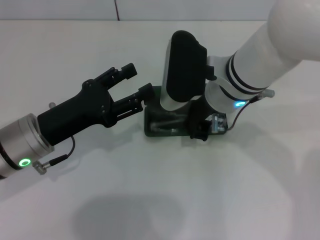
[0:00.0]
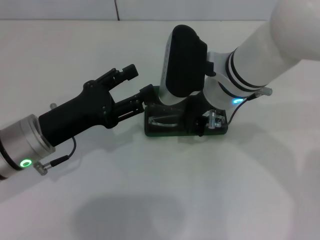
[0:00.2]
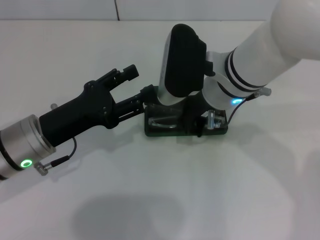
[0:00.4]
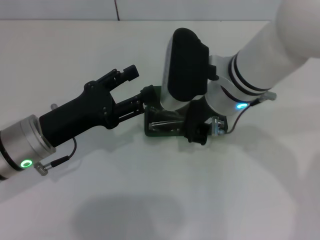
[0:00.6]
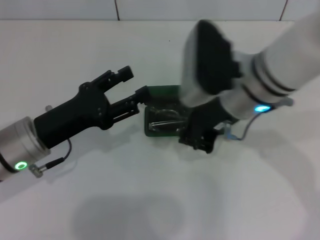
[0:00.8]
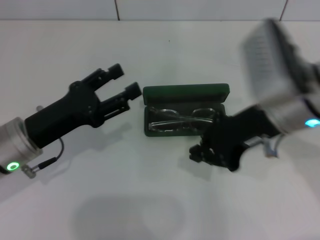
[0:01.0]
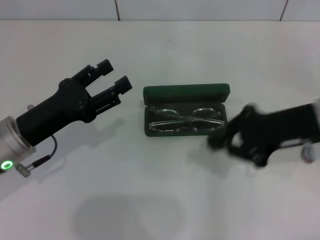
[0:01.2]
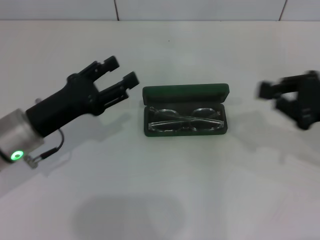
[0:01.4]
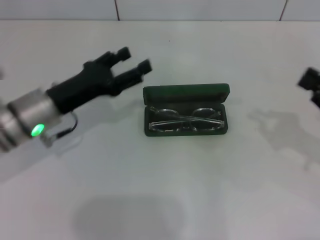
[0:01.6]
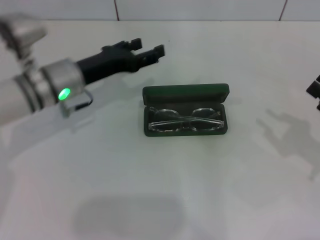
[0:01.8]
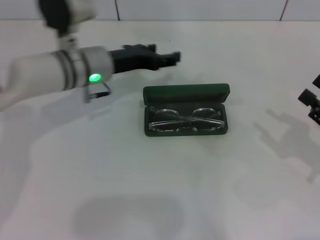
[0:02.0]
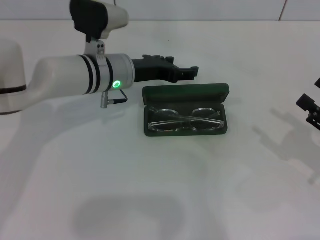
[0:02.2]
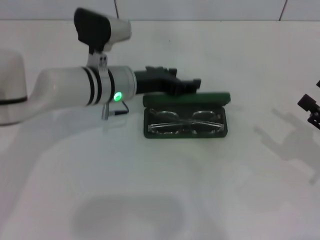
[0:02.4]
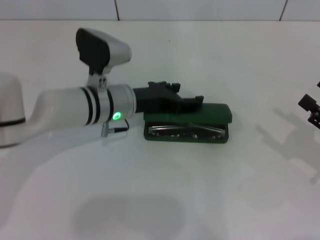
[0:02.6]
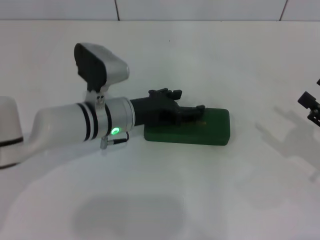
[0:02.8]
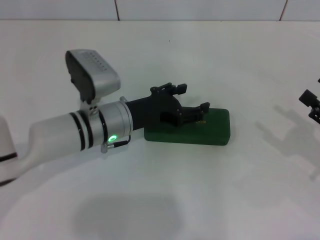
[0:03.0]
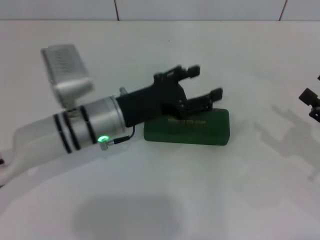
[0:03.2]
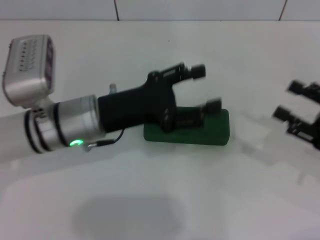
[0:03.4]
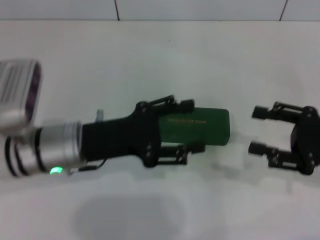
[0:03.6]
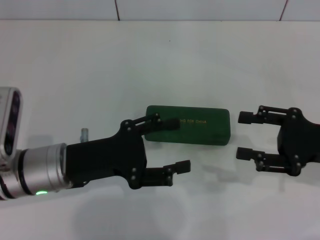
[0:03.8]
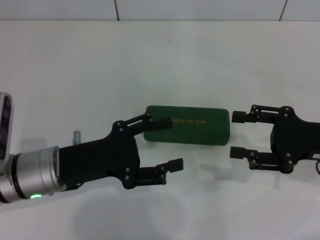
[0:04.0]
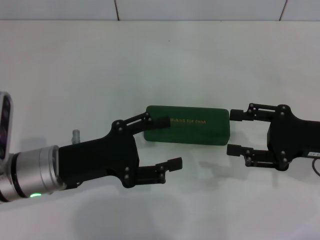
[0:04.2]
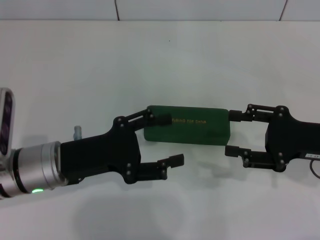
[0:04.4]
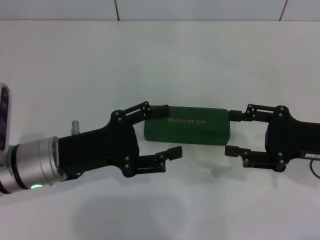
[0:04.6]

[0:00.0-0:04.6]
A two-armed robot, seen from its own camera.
Step, 0:01.0 to 0:03.2: Close the glasses case with your left hand.
0:00.0 to 0:01.6: The right gripper goes approximately 25 cm to the right.
0:01.6 to 0:03.0: The right gripper opens up. Meanwhile the left gripper heads to the right, covering roughly 10 cm.
0:03.0 to 0:04.6: The right gripper goes about 5 cm to the left; the left gripper heads to the left and backward, covering approximately 10 cm.
